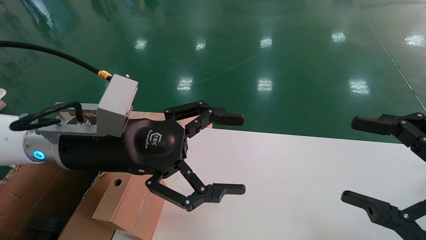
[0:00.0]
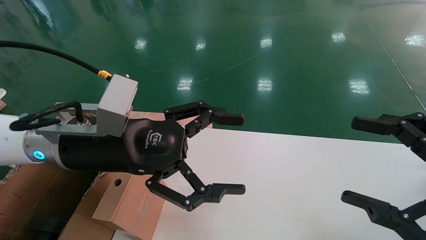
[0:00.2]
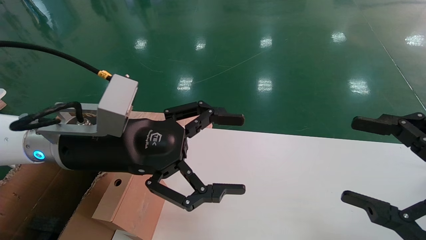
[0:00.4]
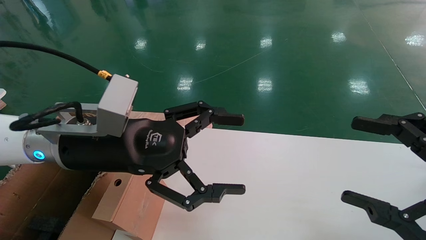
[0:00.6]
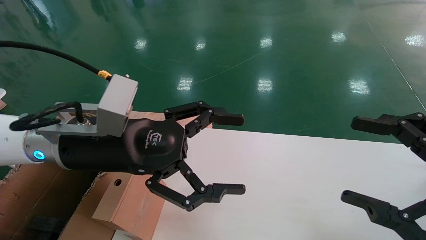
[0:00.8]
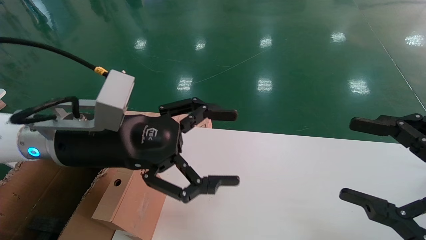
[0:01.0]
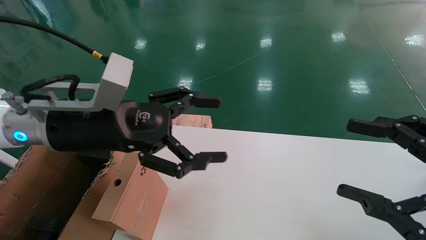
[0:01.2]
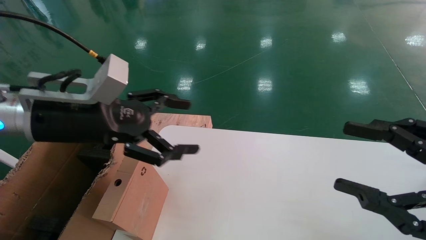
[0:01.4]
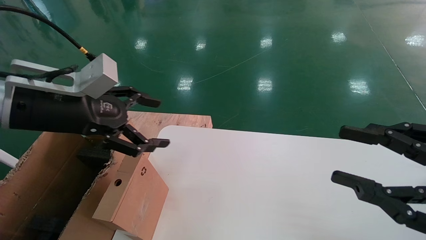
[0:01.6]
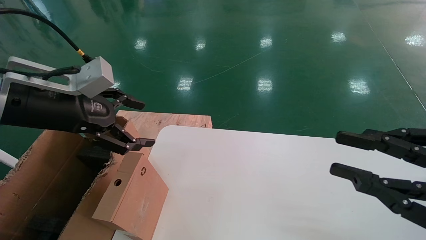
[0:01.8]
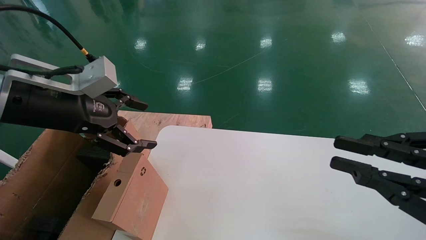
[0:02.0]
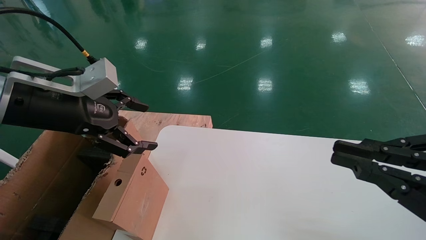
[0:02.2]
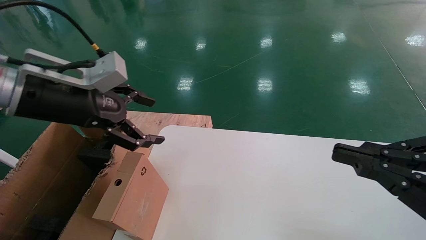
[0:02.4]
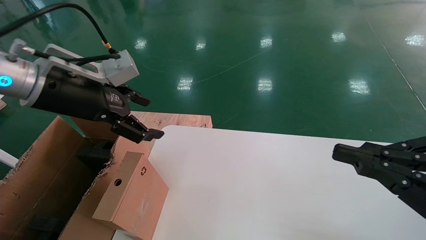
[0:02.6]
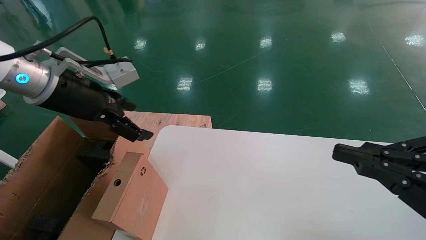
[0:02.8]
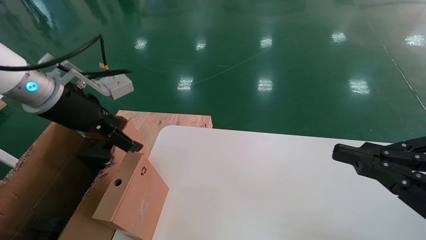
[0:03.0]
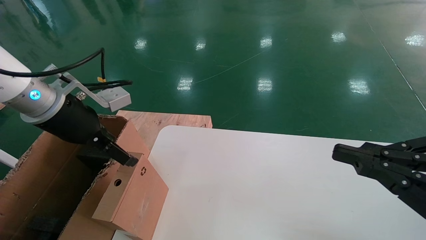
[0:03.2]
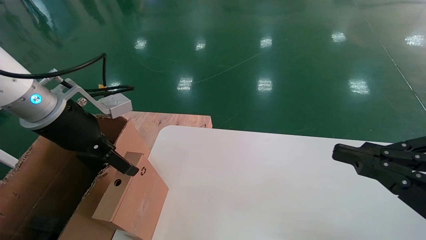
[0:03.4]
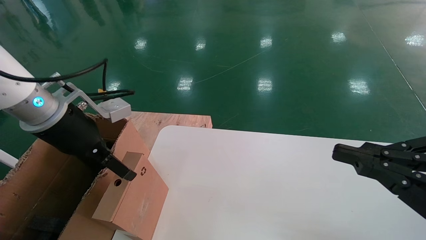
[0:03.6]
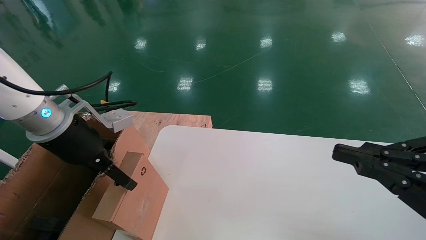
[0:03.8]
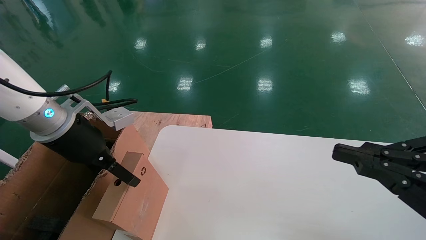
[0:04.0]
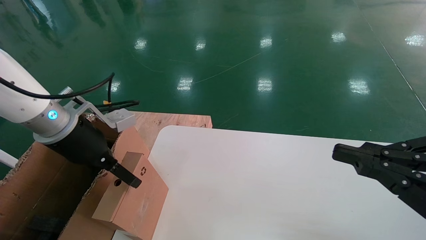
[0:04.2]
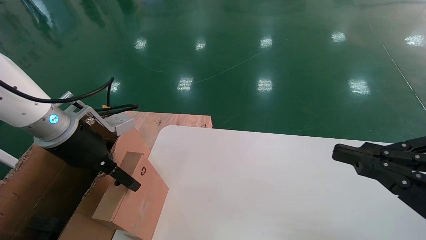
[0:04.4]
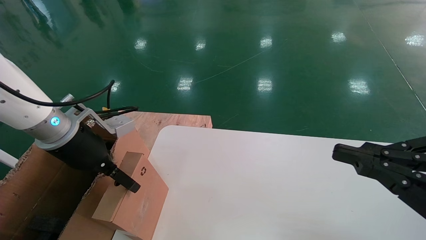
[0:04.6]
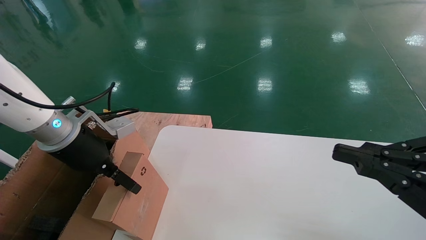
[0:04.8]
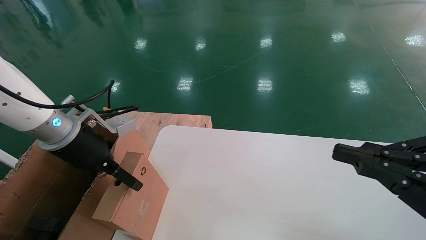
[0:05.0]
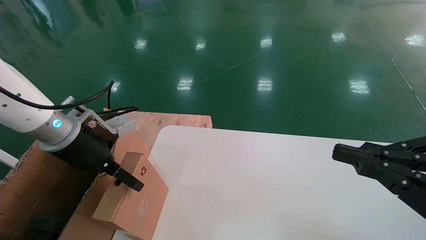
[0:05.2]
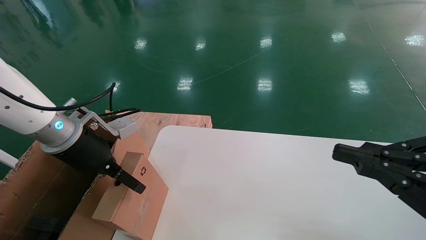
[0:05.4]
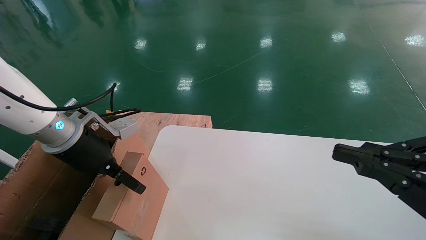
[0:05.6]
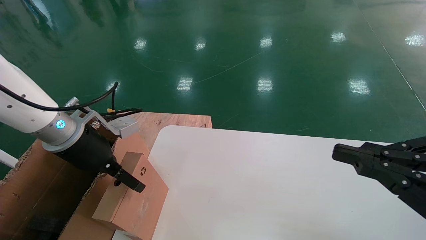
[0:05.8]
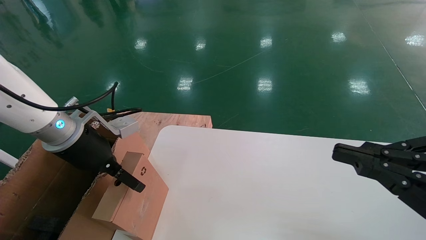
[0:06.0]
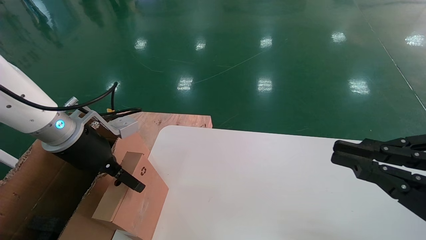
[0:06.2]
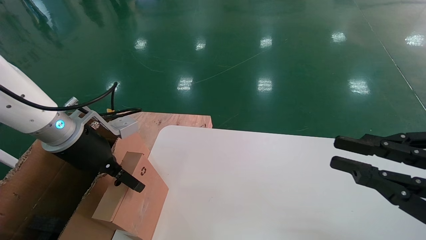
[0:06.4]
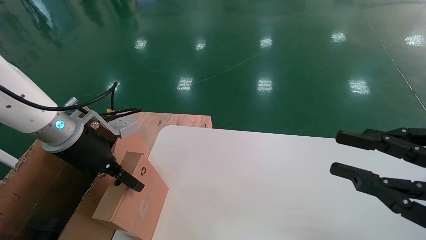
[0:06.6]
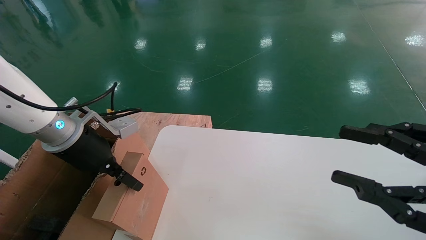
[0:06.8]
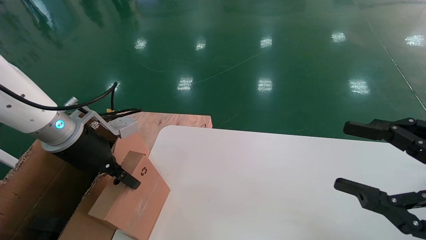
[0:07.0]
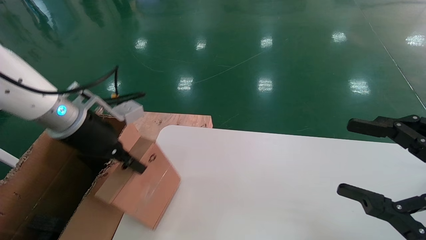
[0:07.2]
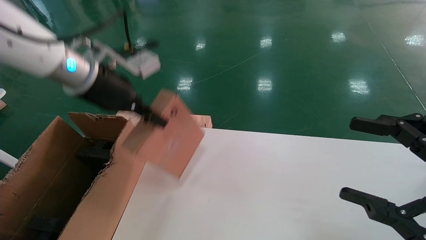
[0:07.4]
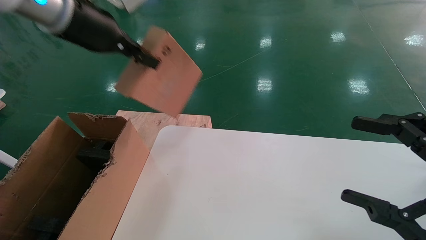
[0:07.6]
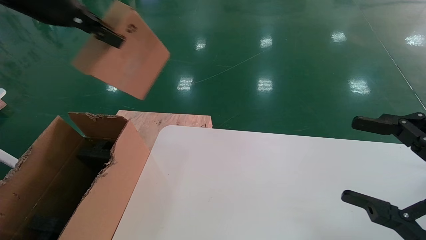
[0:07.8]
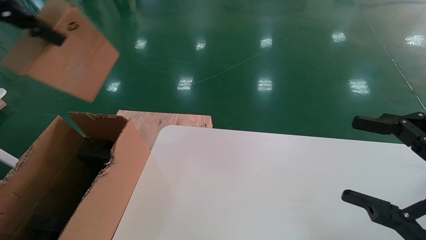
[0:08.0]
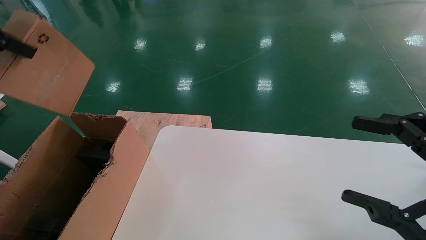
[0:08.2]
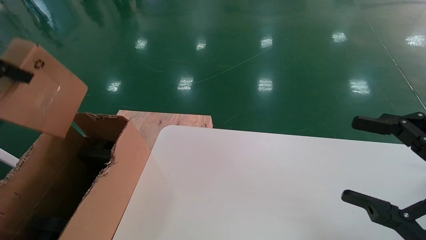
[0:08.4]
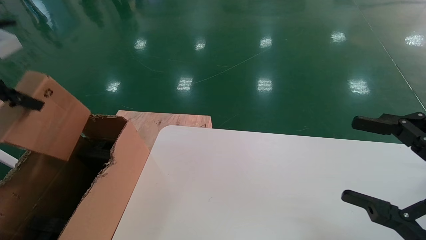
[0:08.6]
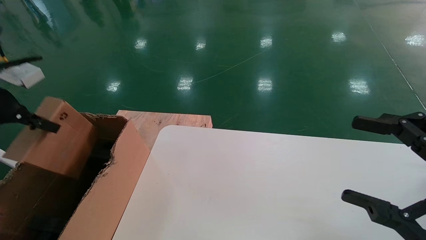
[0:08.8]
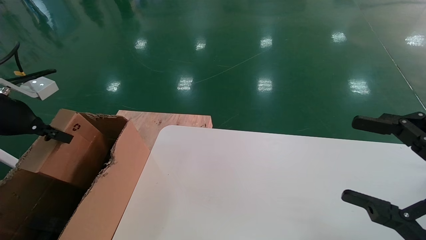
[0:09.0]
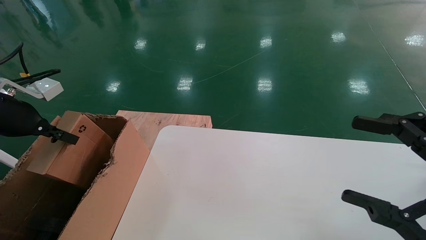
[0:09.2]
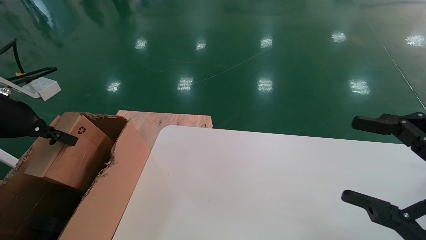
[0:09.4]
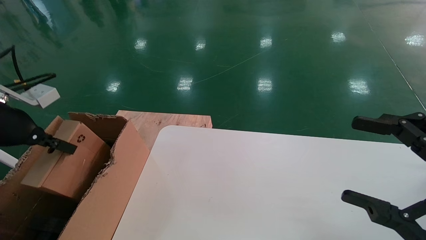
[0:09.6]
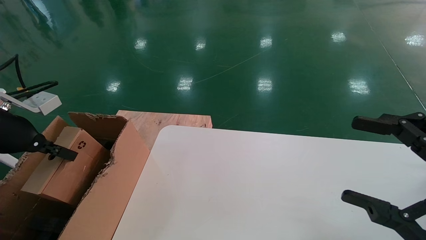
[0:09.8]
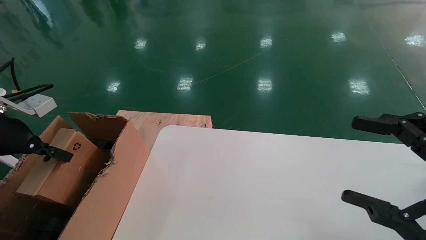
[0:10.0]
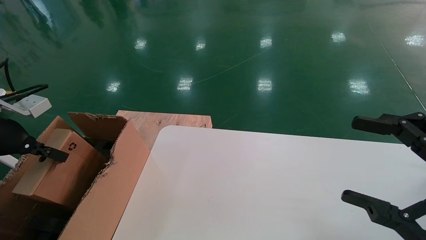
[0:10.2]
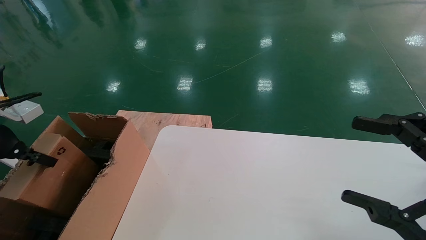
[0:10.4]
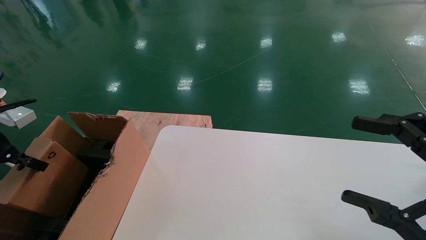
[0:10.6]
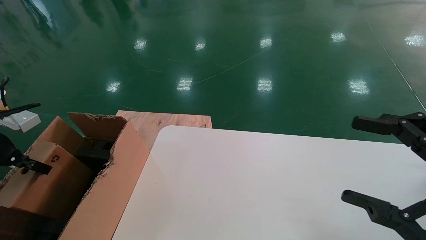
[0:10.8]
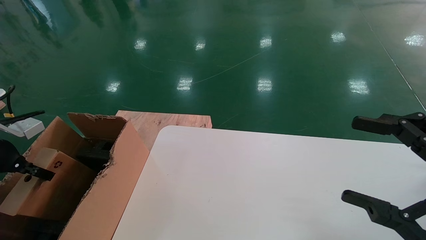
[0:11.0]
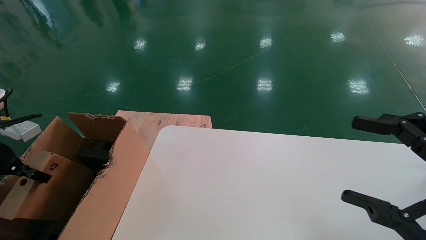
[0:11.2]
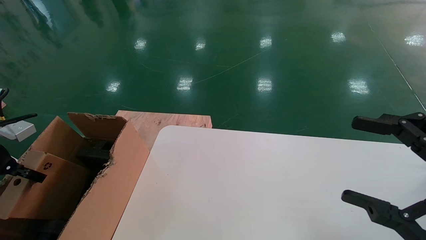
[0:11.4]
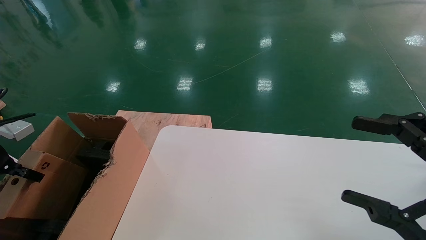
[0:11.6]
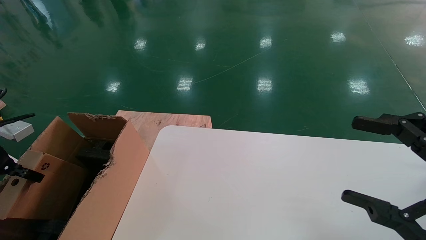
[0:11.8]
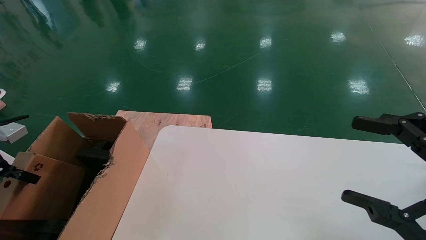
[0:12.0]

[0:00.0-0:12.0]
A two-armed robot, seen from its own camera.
Task of the whole recording: place the small box on the table into the large box on the left.
Step, 0:01.2 to 0:07.2: Pick up the mouse and the power cord paper box.
0:00.0 to 0:01.6: The right gripper closes up. The left gripper shifts some 10 cm to the left.
0:01.6 to 0:03.0: The right gripper closes.
0:03.0 to 0:04.4: The left gripper heads downward, covering about 5 cm.
0:04.4 to 0:06.0: The two grippers keep their place.
0:06.0 to 0:07.6: The left gripper goes roughly 20 cm upward, and closes its fingers. Meanwhile the right gripper opens.
0:07.6 to 0:09.0: The left gripper shifts approximately 20 cm to the left and downward.
0:09.0 to 0:10.4: The left gripper moves downward, about 5 cm.
0:10.4 to 0:12.0: The left gripper travels to the left and downward by about 10 cm.

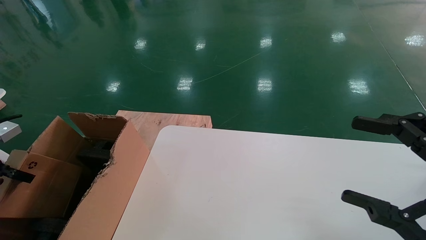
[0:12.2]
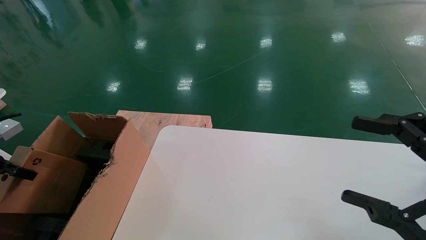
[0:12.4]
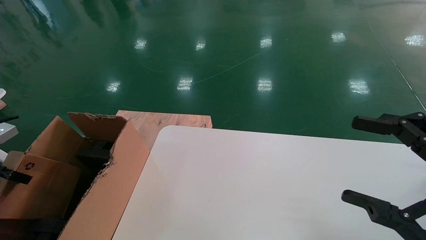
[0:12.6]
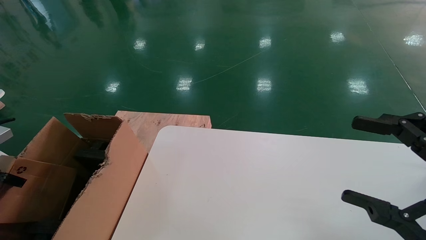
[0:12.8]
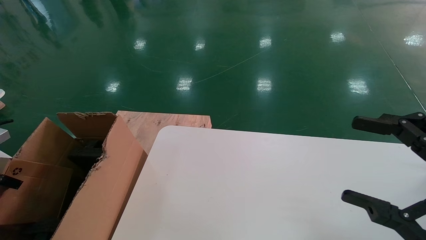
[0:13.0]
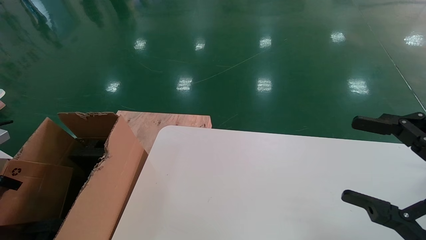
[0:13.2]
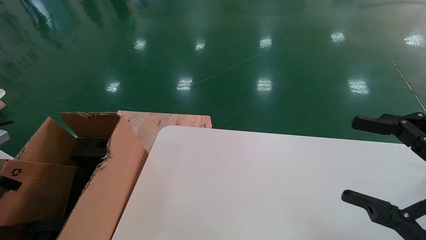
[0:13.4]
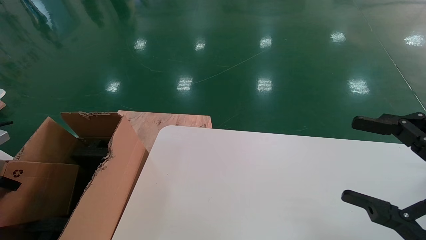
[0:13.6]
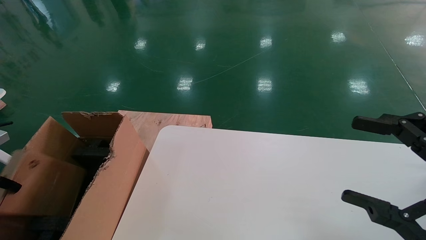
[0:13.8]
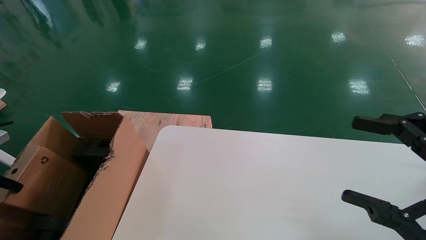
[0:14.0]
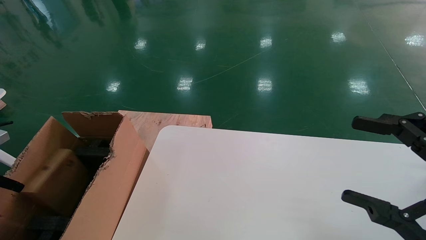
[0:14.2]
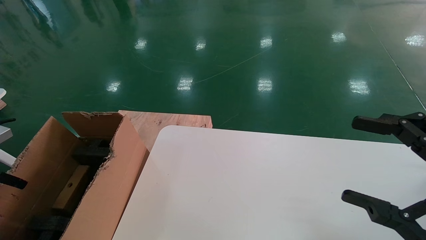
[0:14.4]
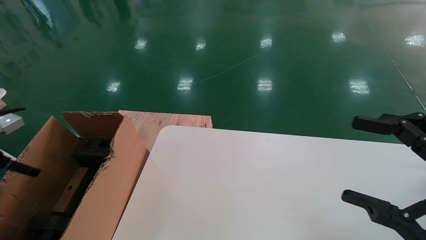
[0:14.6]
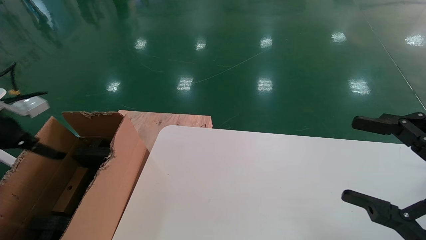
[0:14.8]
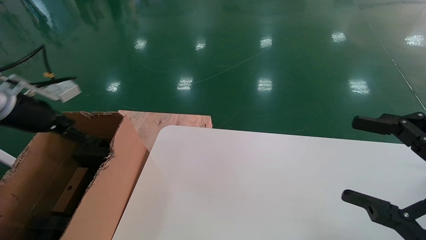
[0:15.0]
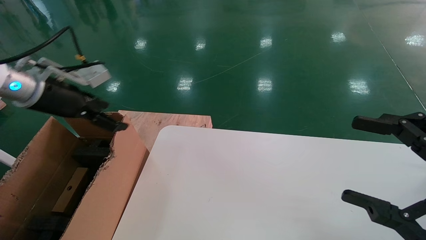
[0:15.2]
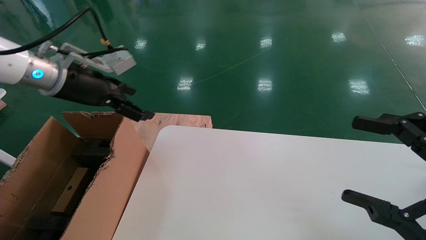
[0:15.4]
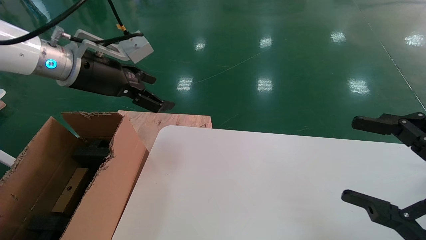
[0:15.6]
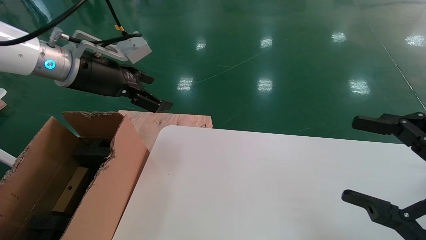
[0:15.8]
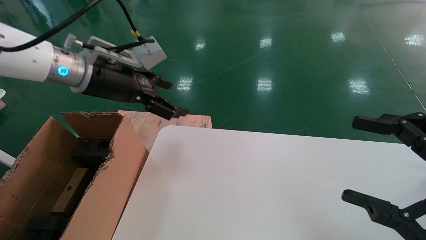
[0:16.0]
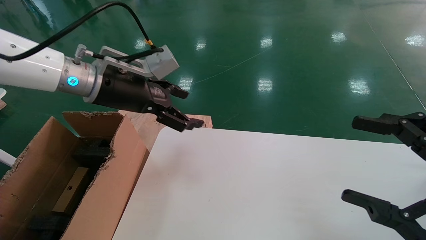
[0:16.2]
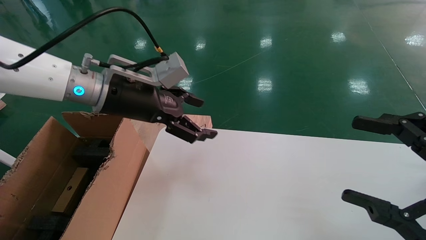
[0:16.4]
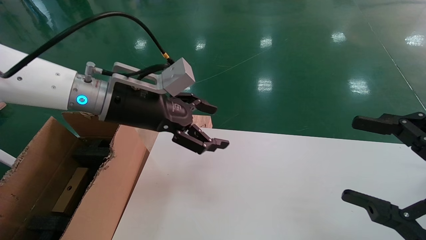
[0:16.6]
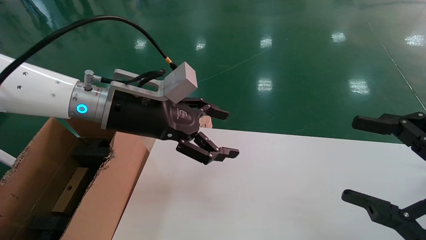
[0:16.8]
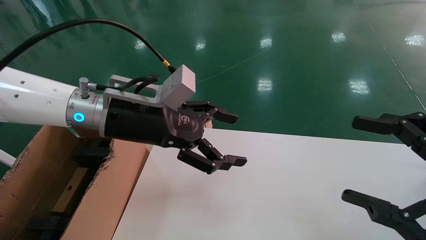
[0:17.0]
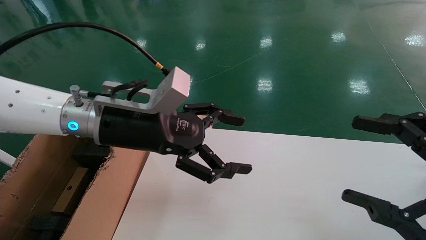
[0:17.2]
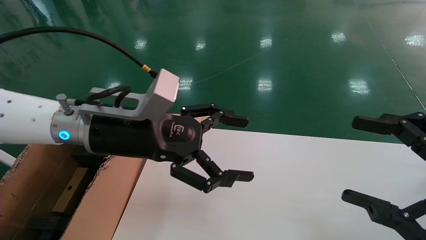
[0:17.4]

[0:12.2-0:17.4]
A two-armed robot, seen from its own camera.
Task of the whole recording: place the small box on the table into the large box on the left.
Step, 0:12.2 to 0:14.4: Place the mouse and the power cord paper box into the container.
0:12.2 to 0:14.0: The left gripper opens its fingers.
0:14.0 to 0:15.6: The left gripper travels to the right, upward and forward by approximately 35 cm, and opens.
0:15.6 to 0:17.4: The left gripper shifts about 15 cm to the right, downward and backward.
